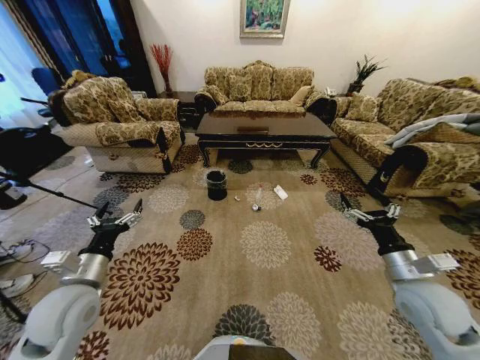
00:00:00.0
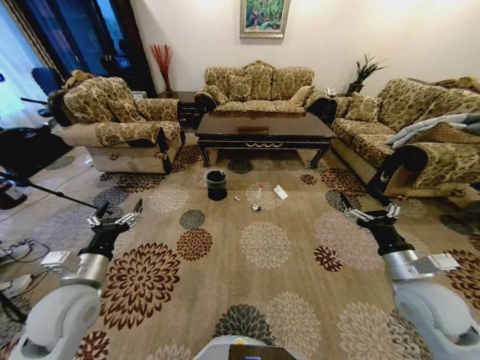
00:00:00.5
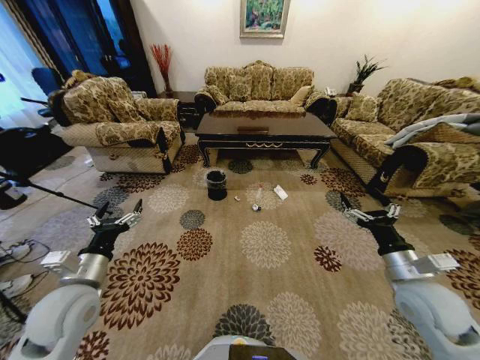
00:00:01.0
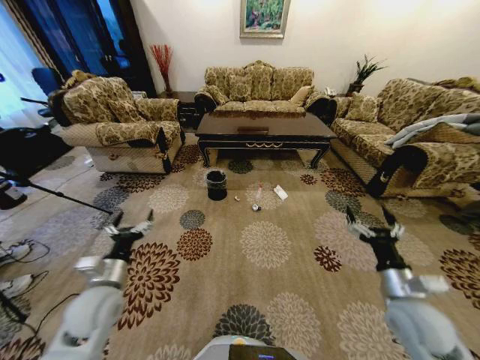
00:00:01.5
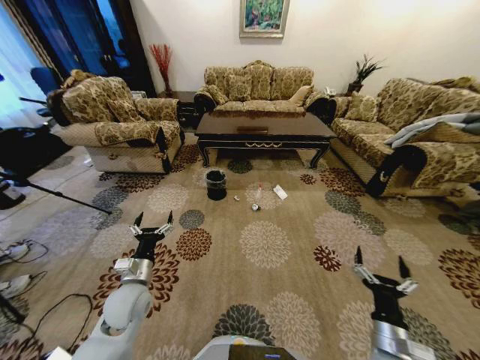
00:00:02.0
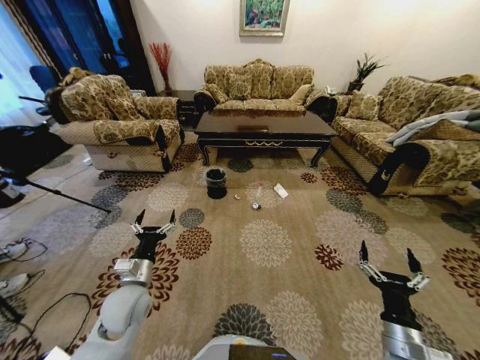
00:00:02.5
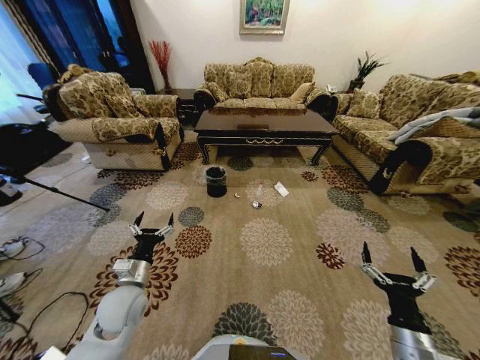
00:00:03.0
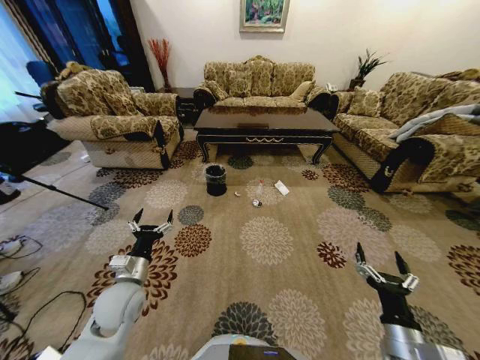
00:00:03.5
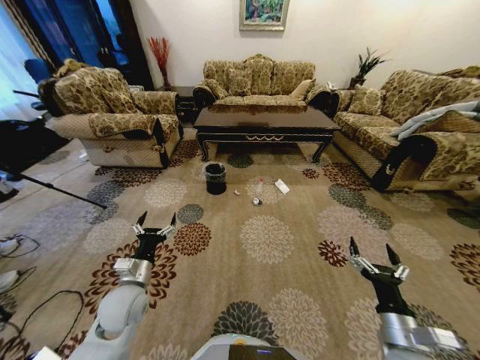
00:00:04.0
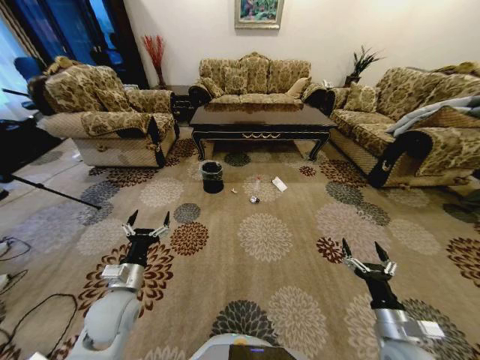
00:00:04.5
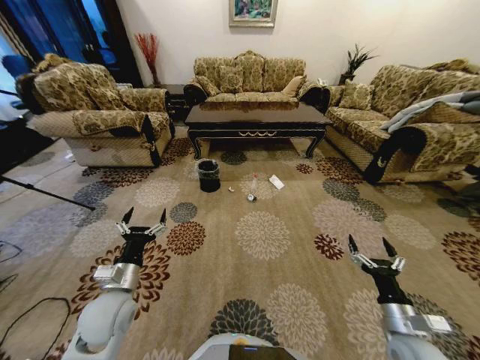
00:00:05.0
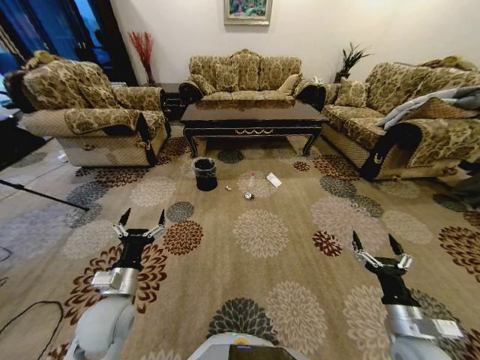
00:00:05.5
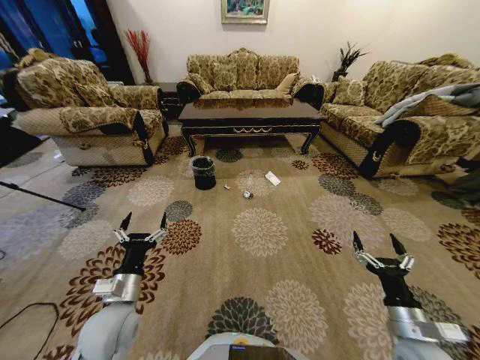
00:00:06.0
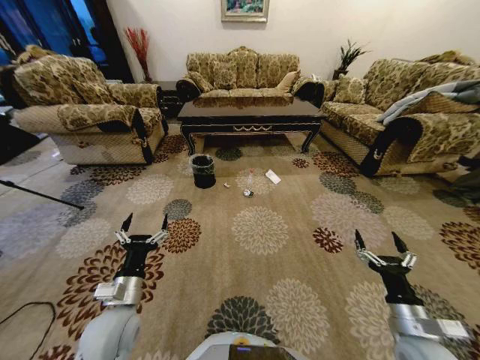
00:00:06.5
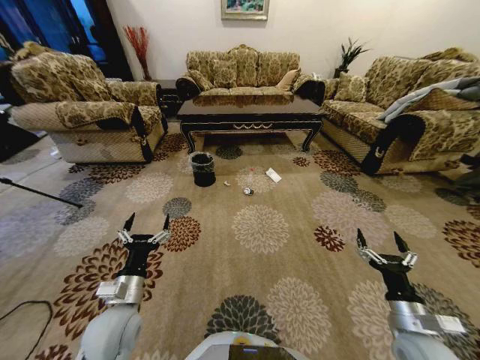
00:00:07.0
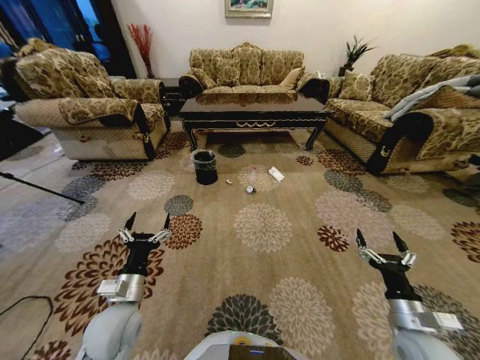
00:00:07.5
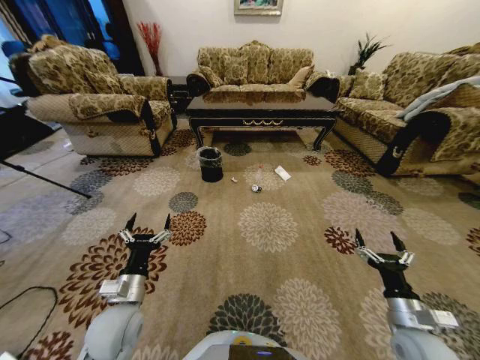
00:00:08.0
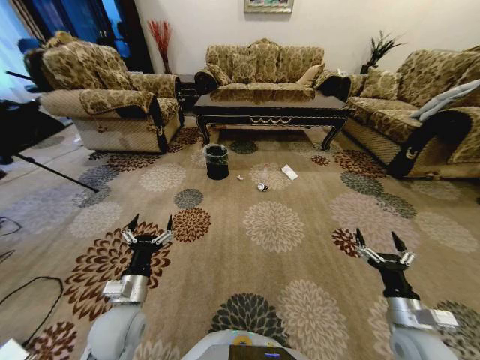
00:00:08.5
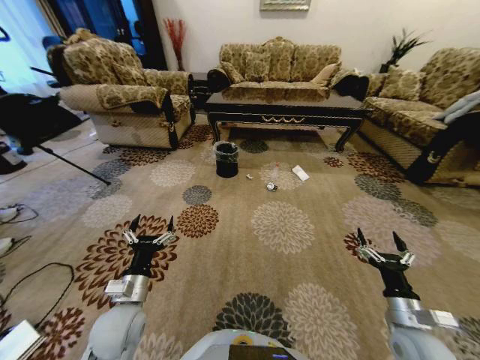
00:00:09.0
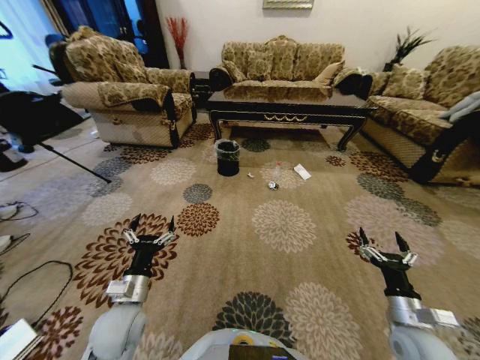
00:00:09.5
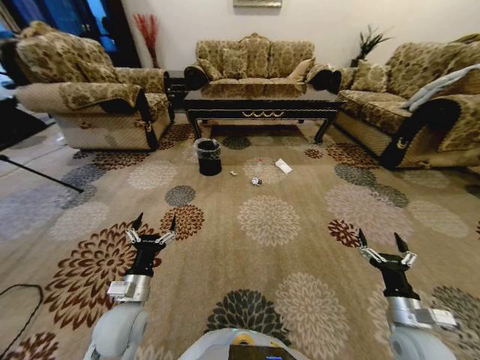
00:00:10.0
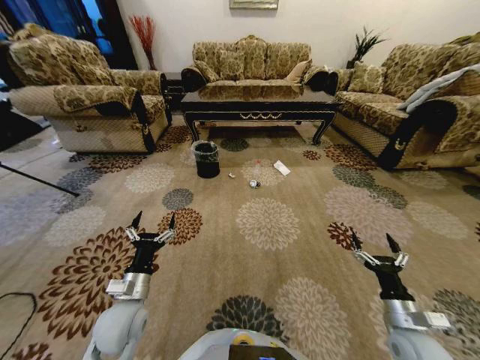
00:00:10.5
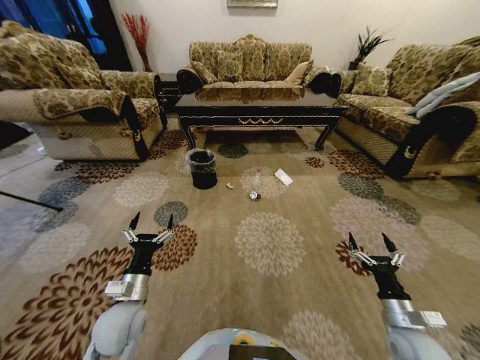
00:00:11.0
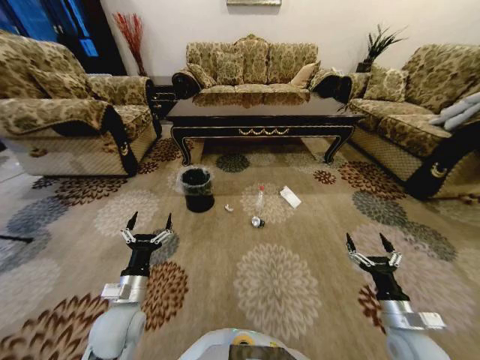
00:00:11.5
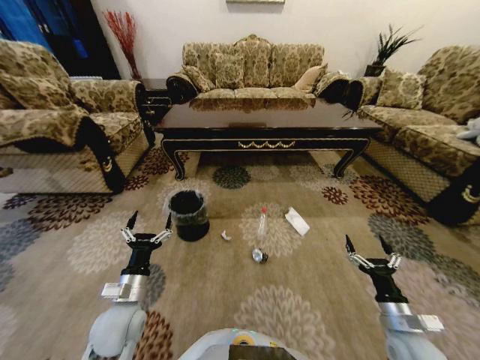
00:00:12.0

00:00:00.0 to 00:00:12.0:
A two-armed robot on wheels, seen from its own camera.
Task of the whole recording: Move to the front of the table and pick up the trash from the floor, then place it into the trash bin.
00:00:02.0 to 00:00:04.0: The right gripper heads upward, covering roughly 5 cm.
00:00:04.0 to 00:00:06.0: The left gripper moves about 5 cm.

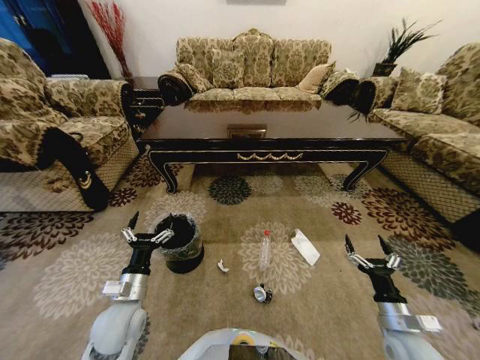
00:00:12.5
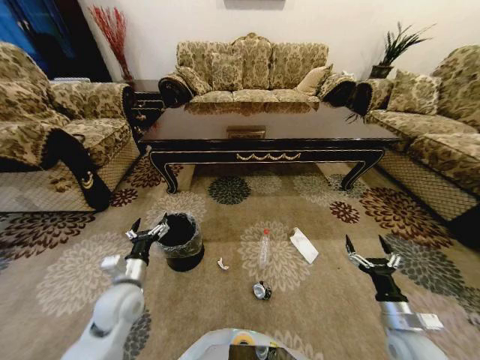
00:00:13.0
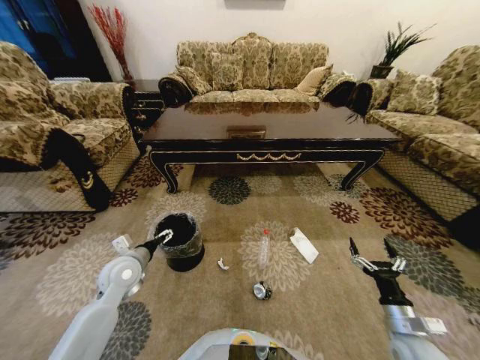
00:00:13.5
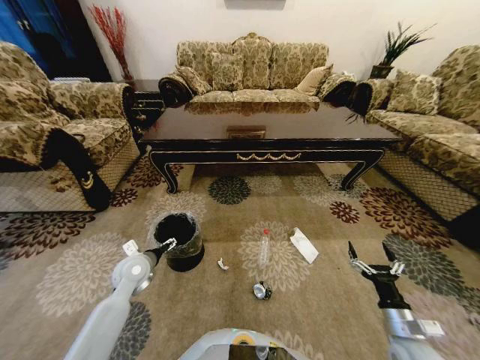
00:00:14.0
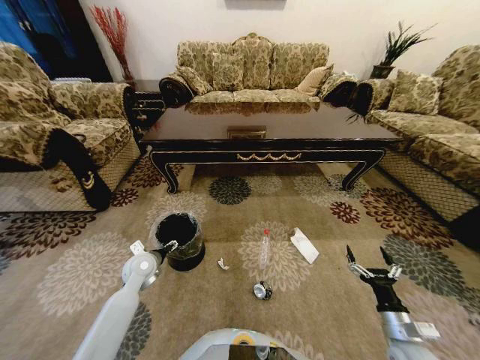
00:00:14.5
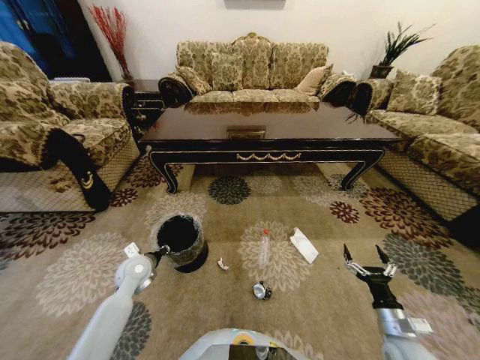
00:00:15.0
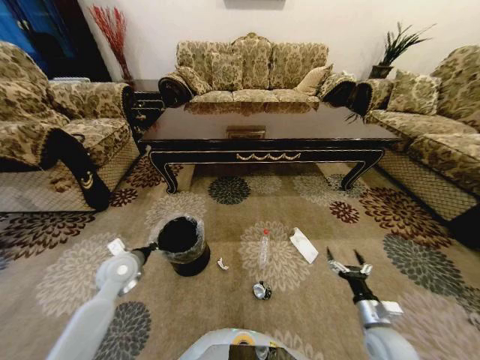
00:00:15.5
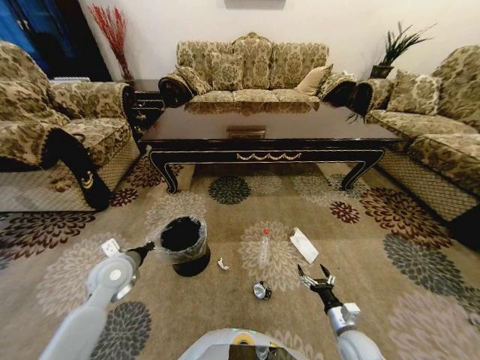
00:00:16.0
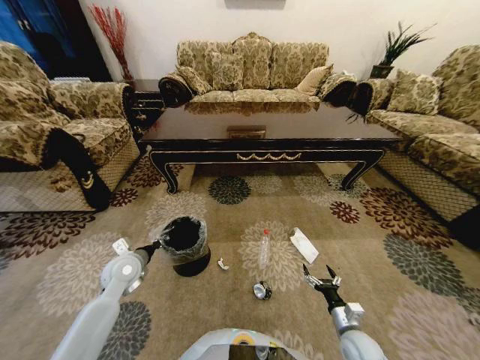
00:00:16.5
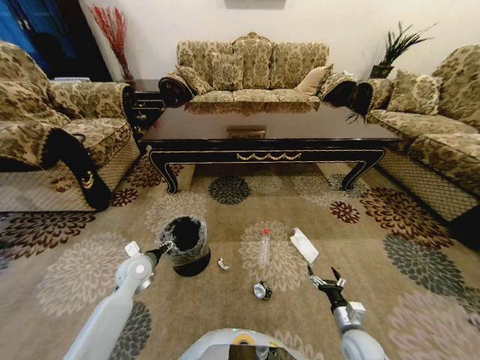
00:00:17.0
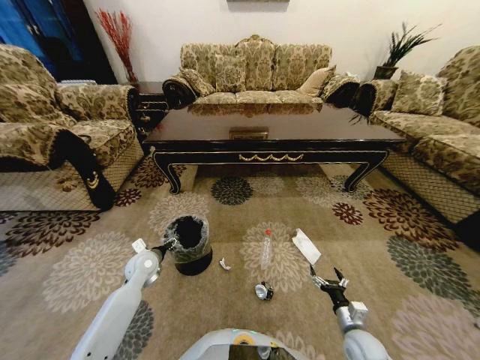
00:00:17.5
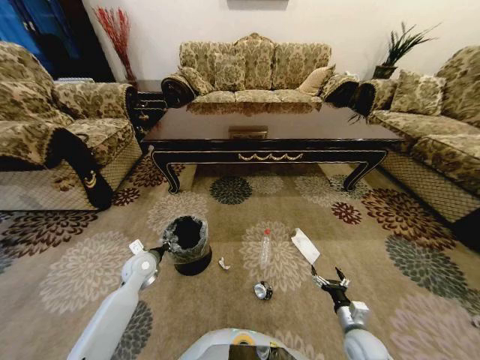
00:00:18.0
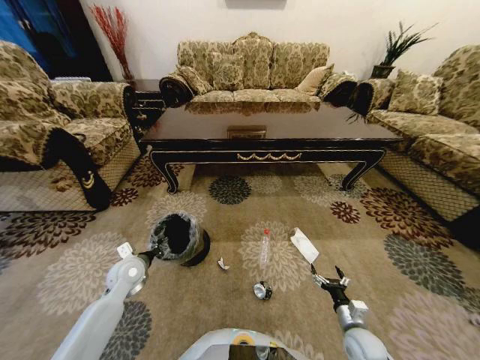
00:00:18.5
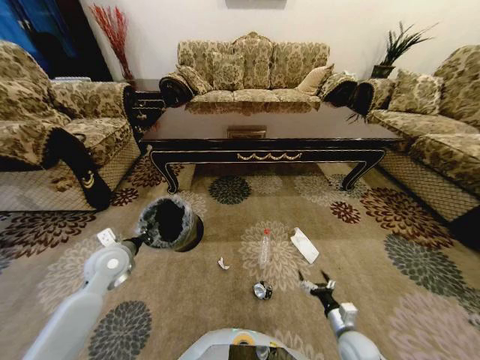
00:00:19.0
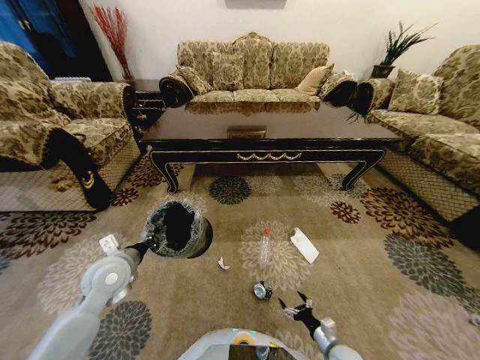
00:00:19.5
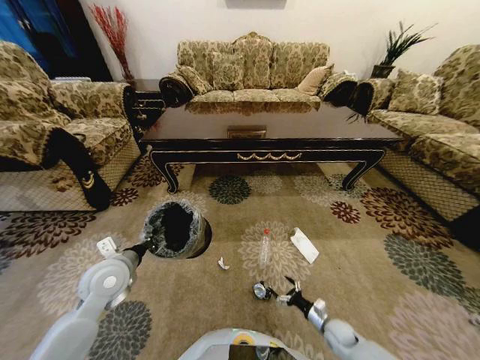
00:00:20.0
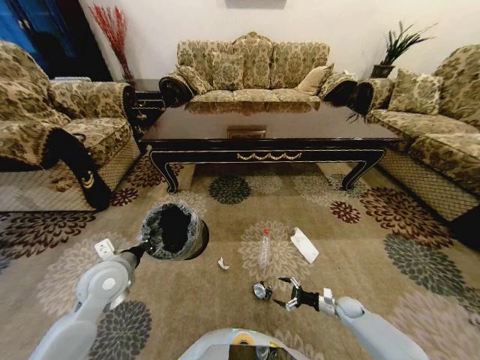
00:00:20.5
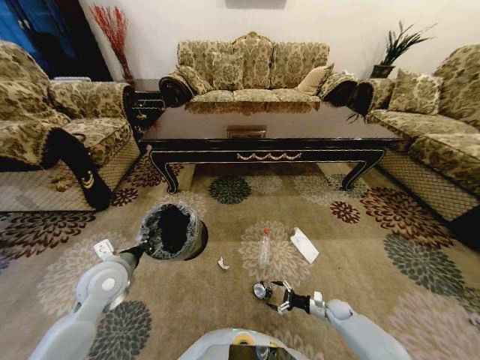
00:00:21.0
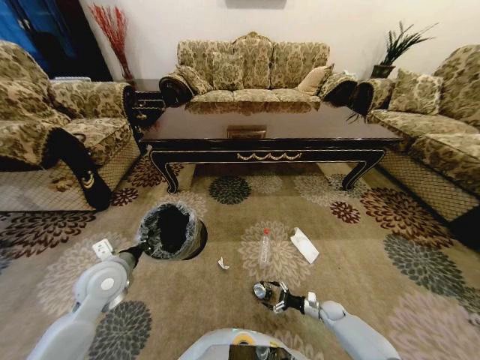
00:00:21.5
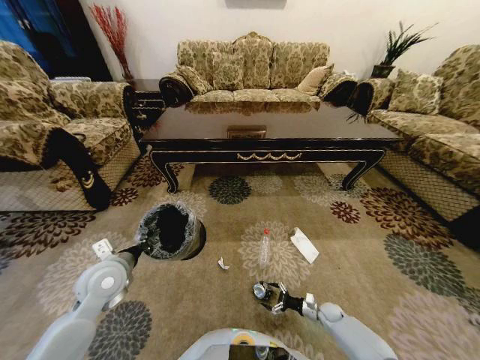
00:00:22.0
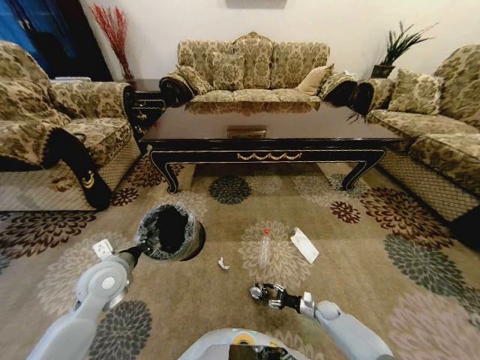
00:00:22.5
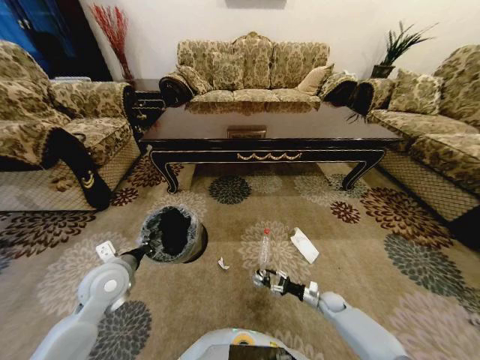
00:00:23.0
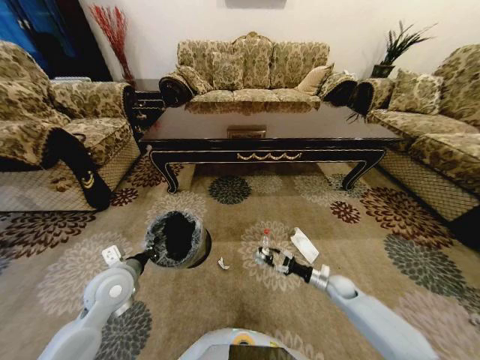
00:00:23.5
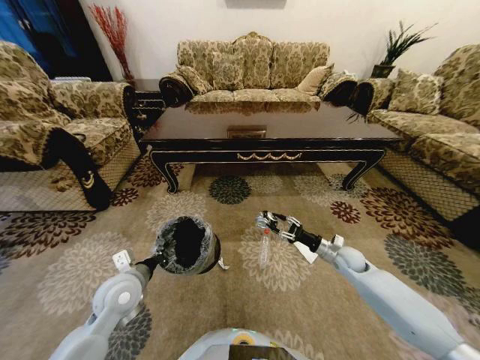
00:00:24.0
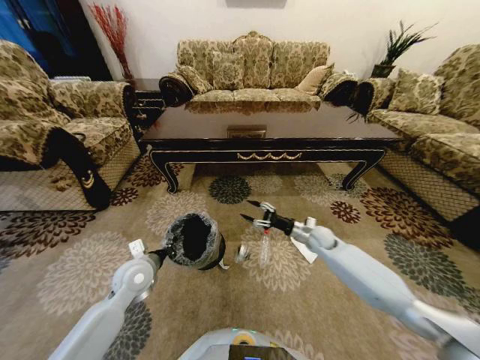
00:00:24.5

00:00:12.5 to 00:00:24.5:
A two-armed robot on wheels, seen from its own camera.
Task of the whole recording: Move to the front of the table and pick up the trash from the floor, then place it into the trash bin.
00:00:12.5 to 00:00:14.5: The left gripper shifts about 15 cm forward.
00:00:14.5 to 00:00:16.5: The left gripper closes up, while the right gripper moves downward and to the left, about 10 cm.
00:00:16.5 to 00:00:18.5: The left gripper opens and closes again.
00:00:18.5 to 00:00:20.5: The right gripper heads forward, downward and to the right, covering some 15 cm. Meanwhile the left gripper goes about 10 cm upward and backward.
00:00:20.5 to 00:00:22.5: The right gripper travels to the left and downward by approximately 10 cm, and closes up.
00:00:22.5 to 00:00:24.5: The right gripper moves upward and forward, some 35 cm. The left gripper shifts by approximately 5 cm.

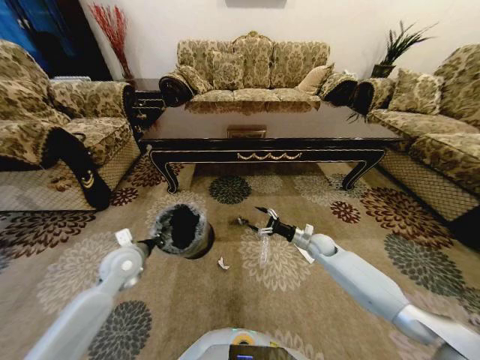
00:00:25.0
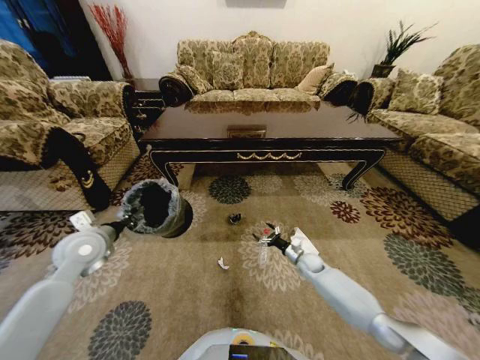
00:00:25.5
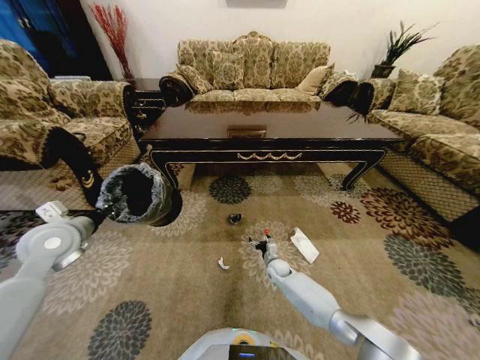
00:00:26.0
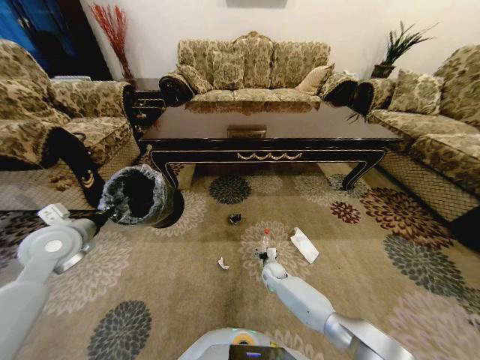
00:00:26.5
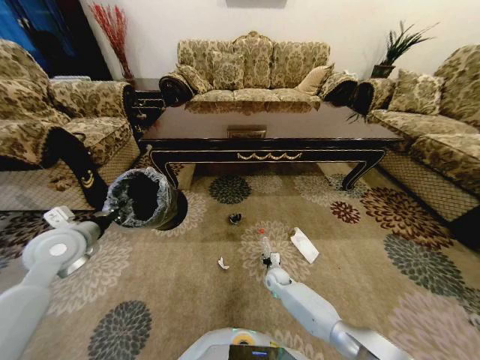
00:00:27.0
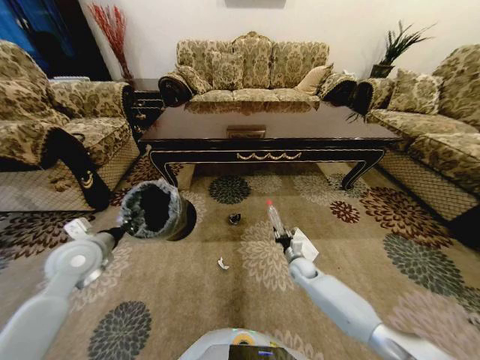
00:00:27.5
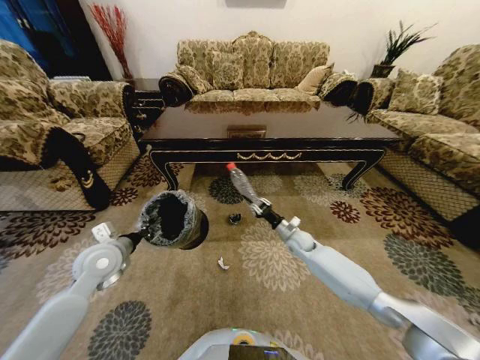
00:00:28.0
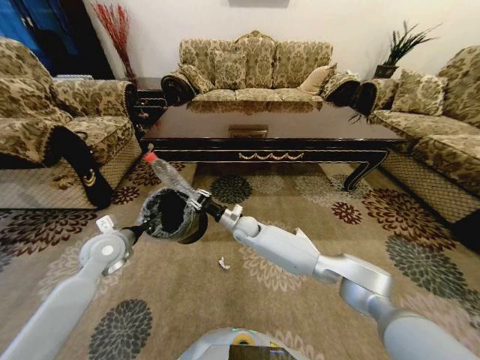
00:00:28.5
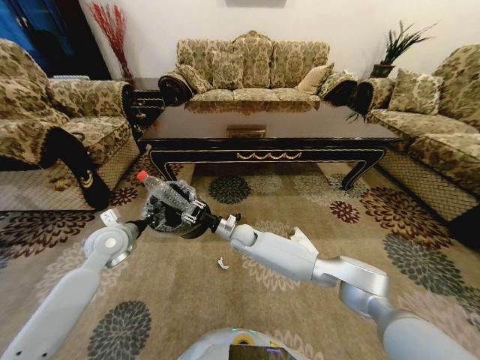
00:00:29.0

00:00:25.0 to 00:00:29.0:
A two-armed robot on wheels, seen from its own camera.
Task of the whole recording: Move to the front of the table and pick up the trash from the floor, then place it into the trash bin.
00:00:25.0 to 00:00:27.0: The left gripper travels upward and to the left by about 15 cm, while the right gripper moves downward, to the left and backward, approximately 25 cm.
00:00:27.0 to 00:00:29.0: The right gripper goes some 25 cm upward and to the left, and closes. Meanwhile the left gripper shifts some 10 cm downward and forward.
